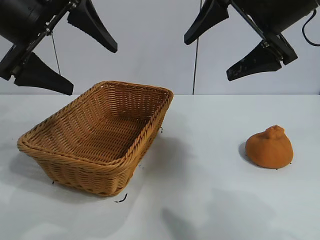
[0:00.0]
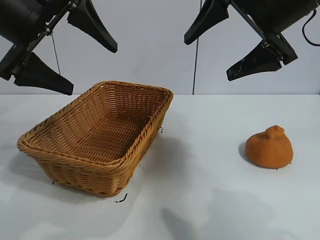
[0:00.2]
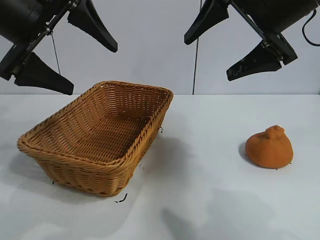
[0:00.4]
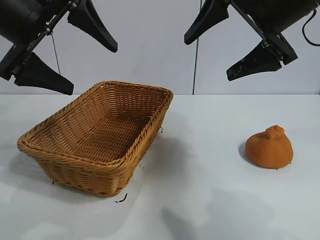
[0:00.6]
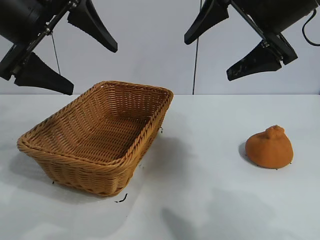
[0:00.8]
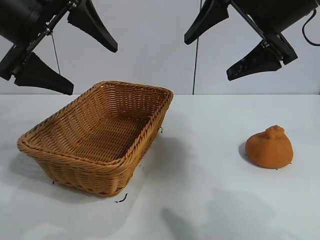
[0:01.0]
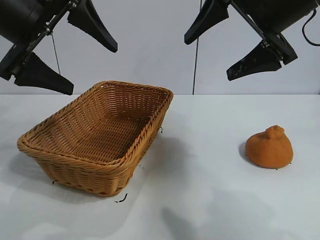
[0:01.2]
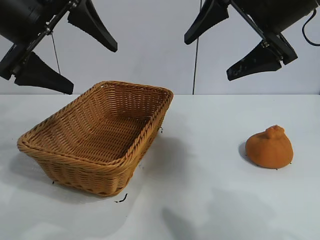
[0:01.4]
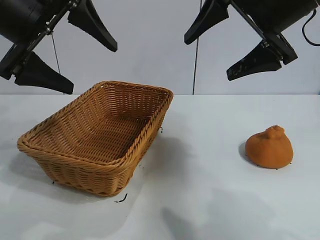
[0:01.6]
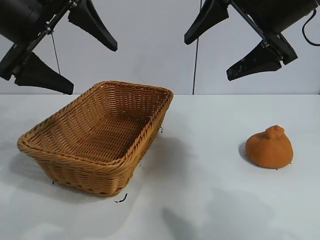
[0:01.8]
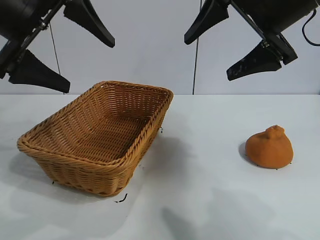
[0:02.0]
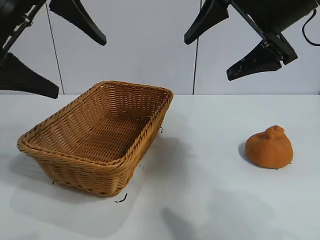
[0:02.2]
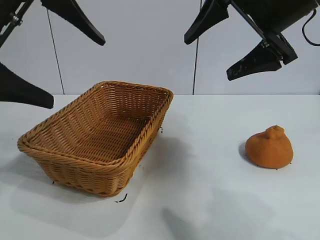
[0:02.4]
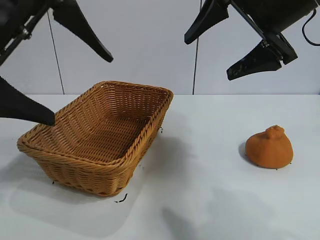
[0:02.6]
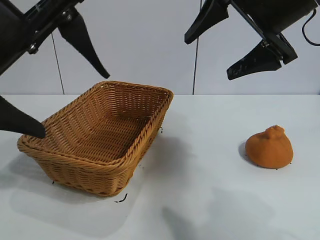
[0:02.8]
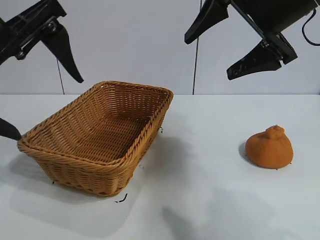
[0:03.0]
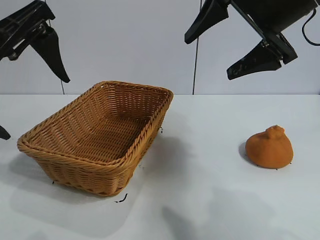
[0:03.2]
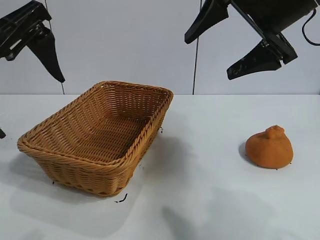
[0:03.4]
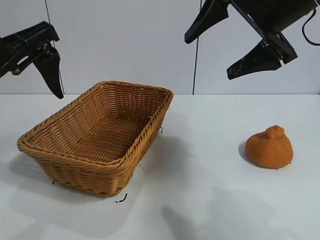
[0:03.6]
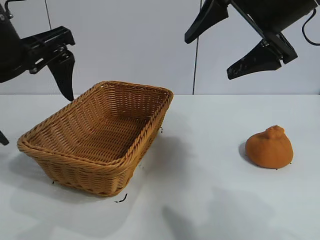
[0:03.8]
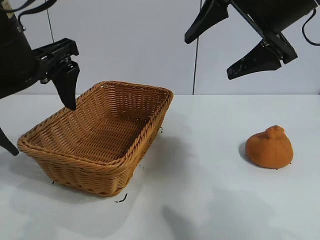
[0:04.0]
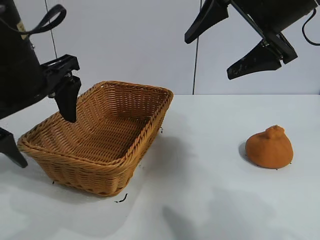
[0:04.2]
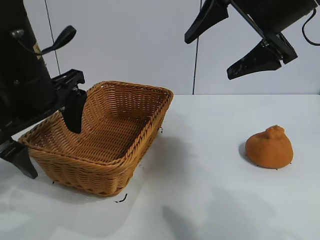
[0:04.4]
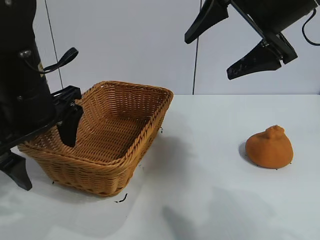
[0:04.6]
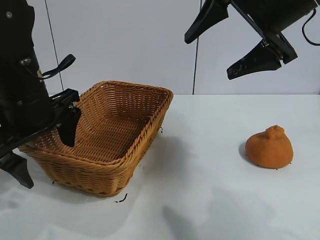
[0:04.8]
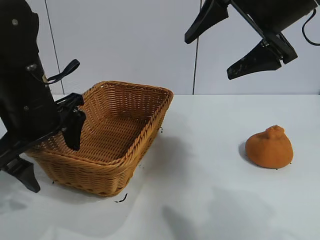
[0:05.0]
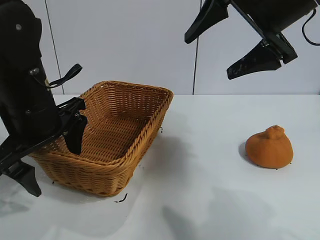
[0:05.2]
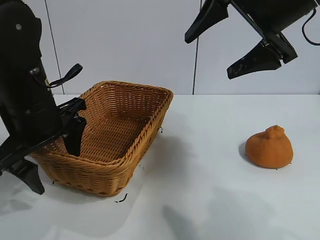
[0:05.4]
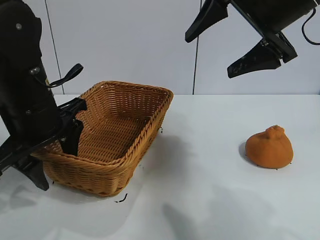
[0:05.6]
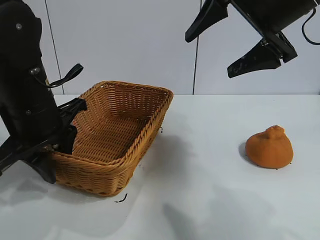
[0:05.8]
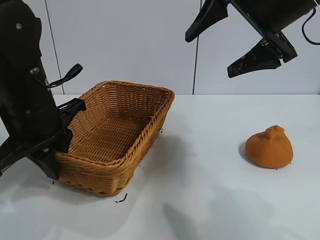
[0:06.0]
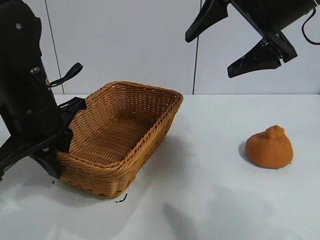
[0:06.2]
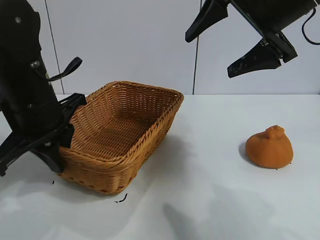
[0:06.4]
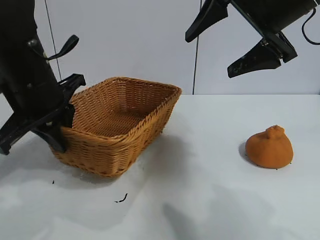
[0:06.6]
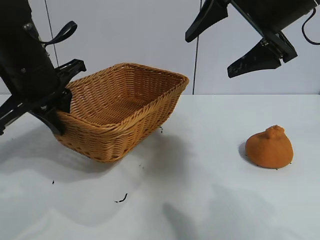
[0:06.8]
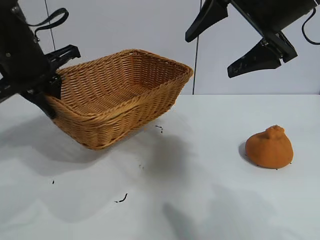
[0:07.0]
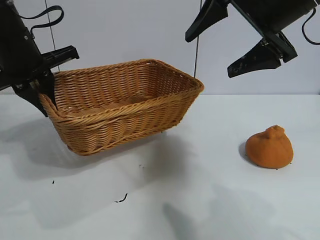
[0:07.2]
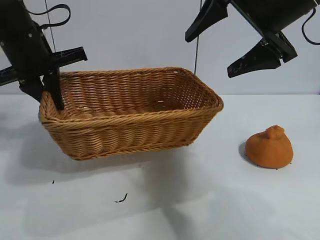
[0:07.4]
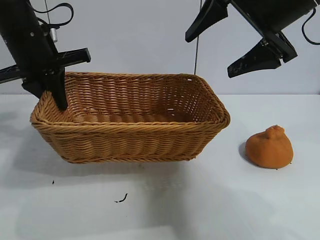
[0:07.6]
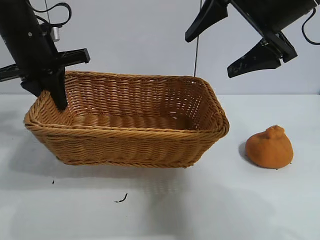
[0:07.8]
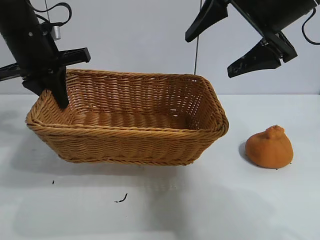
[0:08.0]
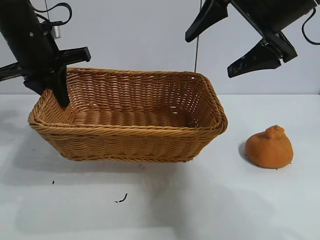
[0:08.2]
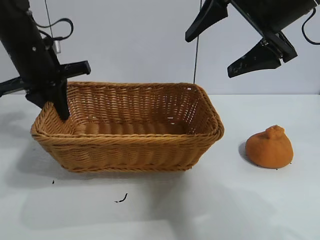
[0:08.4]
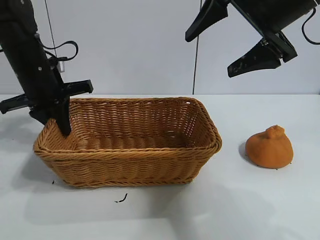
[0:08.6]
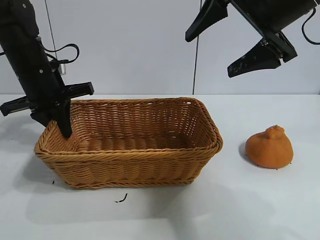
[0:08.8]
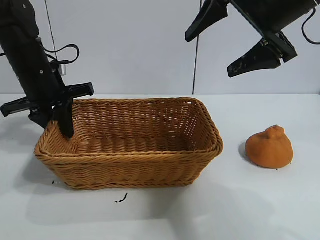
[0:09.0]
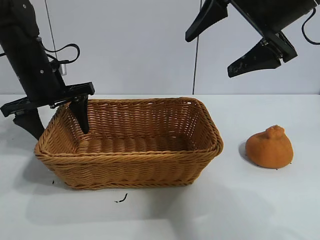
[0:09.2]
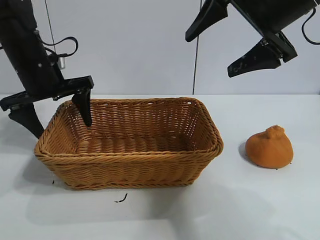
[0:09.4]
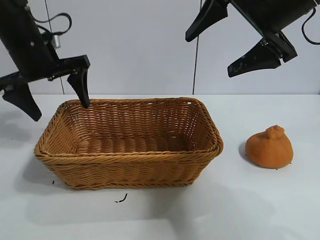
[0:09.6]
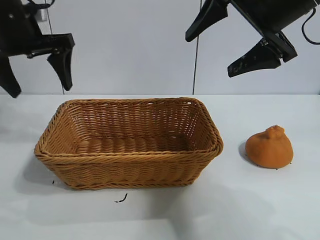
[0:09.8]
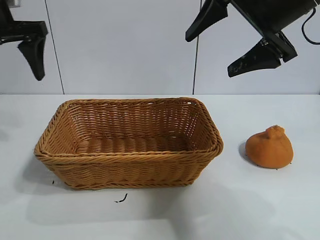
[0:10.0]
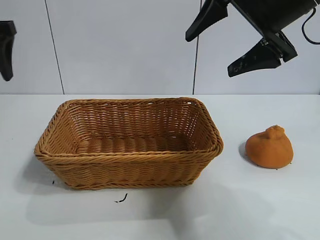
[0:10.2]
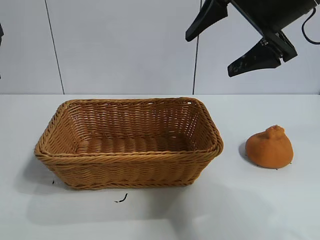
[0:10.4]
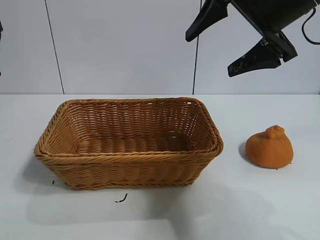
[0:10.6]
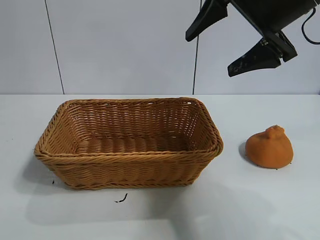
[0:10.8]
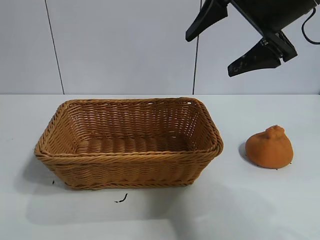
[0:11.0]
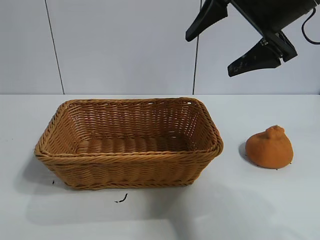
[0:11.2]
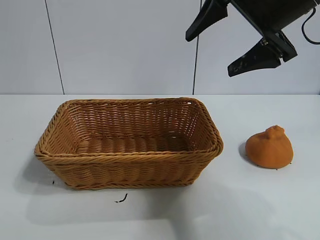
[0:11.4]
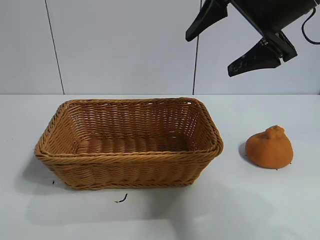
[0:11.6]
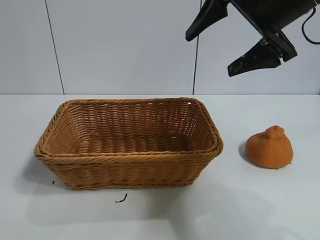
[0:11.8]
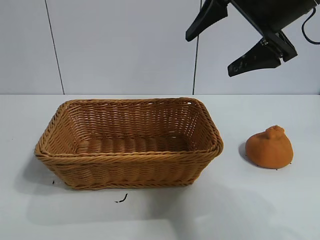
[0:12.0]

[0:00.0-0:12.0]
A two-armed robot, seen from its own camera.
Task of the whole recording: pick up the orange and put it into the basket.
Step, 0:01.8 to 0:06.0: Grasp the basket with left gripper.
Step, 0:06.2 to 0:09.2: Place the basket in the center of view with left gripper.

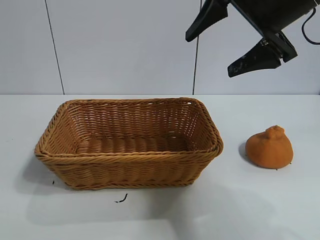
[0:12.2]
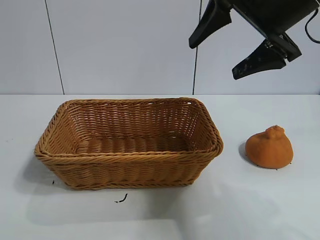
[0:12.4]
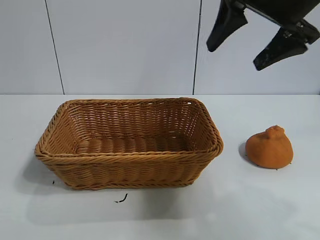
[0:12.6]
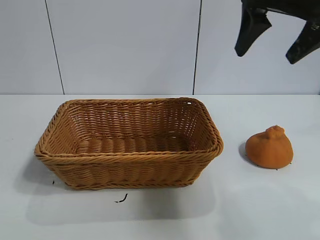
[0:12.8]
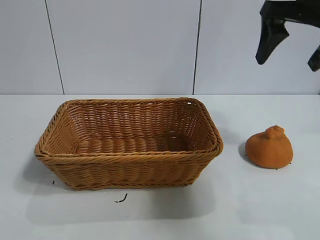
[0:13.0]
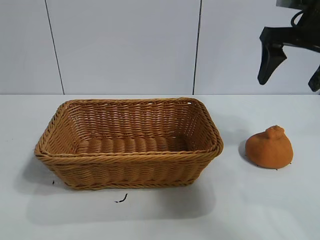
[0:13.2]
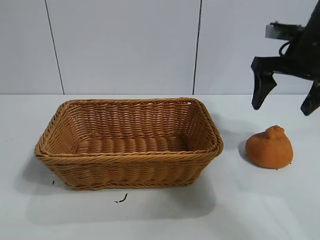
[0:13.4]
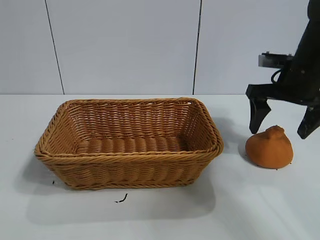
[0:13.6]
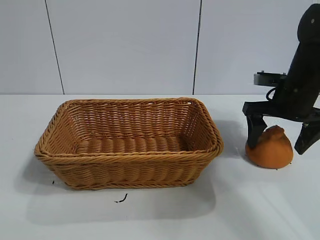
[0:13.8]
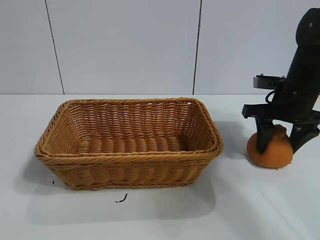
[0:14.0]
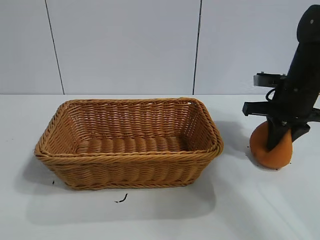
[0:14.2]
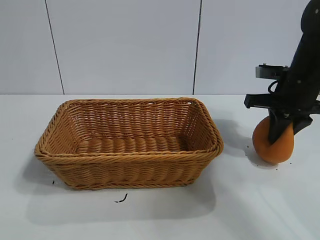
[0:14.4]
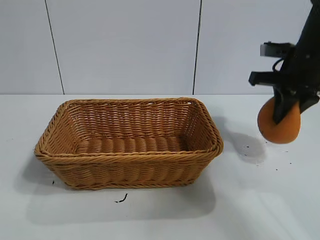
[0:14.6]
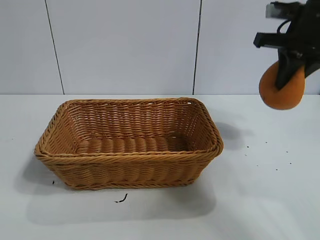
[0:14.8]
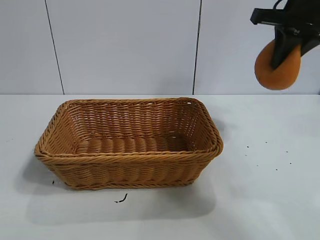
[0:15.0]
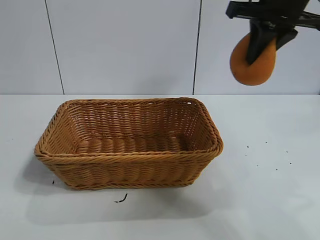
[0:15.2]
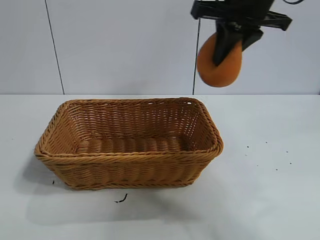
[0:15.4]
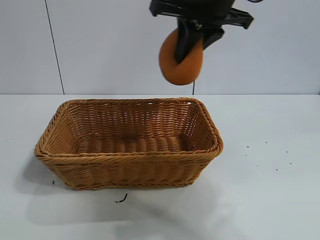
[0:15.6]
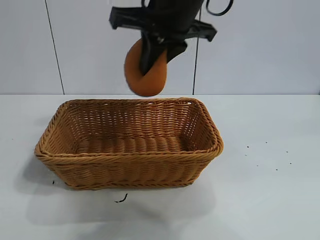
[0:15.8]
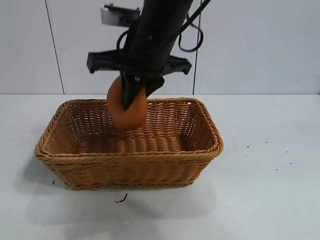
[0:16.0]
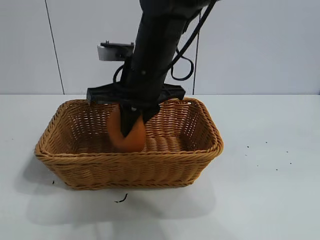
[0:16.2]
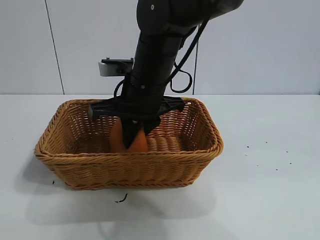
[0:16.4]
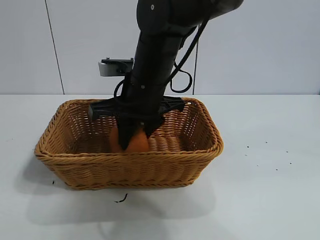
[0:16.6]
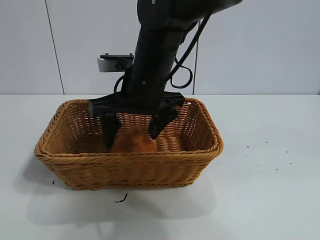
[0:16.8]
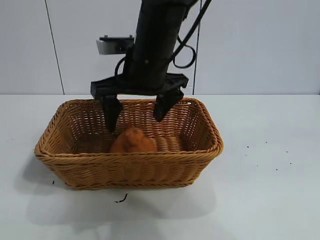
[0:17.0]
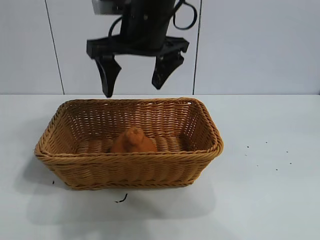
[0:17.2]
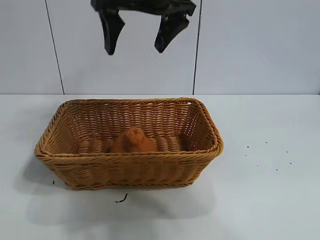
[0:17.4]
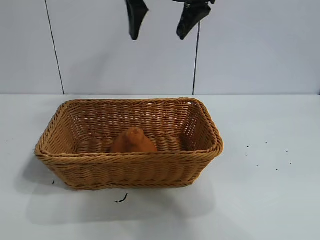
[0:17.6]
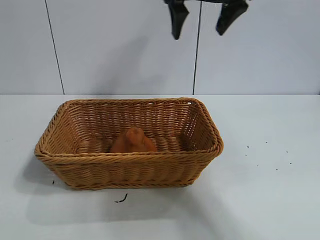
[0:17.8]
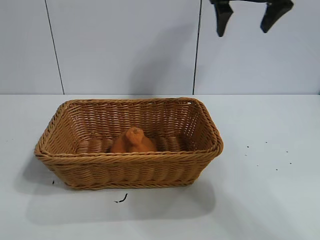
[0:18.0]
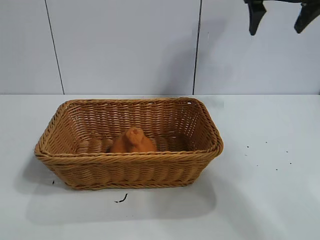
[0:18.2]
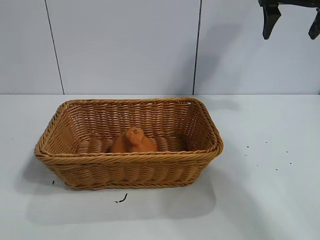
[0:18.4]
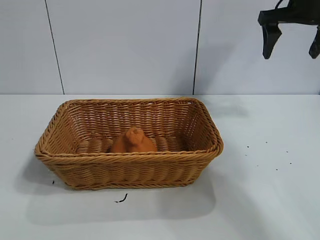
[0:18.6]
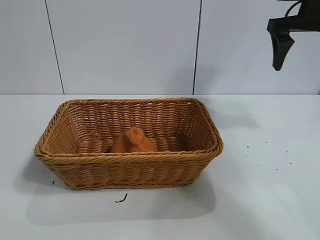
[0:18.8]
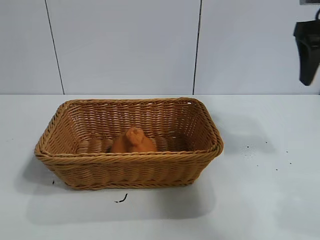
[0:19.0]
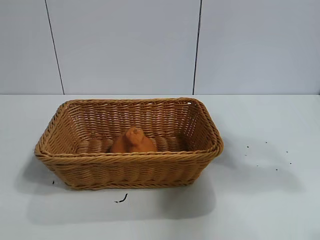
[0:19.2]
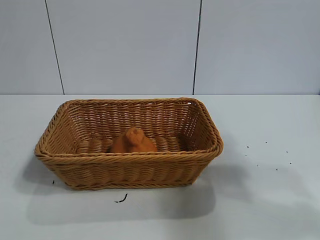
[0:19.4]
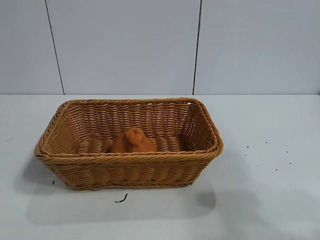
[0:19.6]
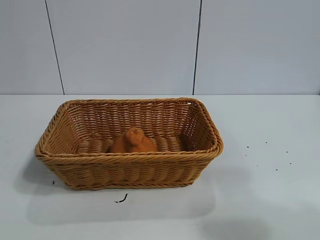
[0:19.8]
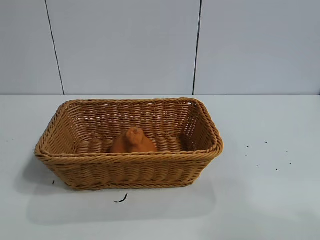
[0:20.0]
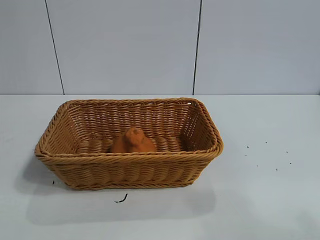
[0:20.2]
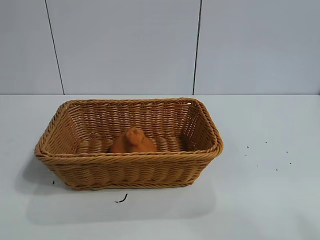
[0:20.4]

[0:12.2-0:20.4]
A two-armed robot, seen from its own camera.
Task of the whole recording: pick up the orange and put it into the basket.
Step, 0:12.2 to 0:14.2: Grasp the orange with right gripper.
Step, 0:14.6 to 0:16.8: Place the orange in the basket with right gripper.
